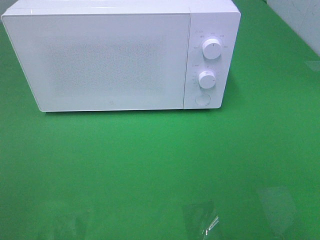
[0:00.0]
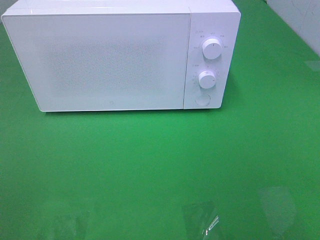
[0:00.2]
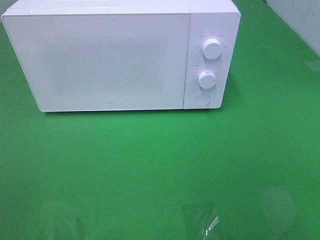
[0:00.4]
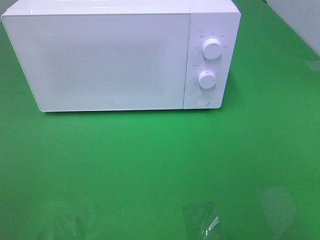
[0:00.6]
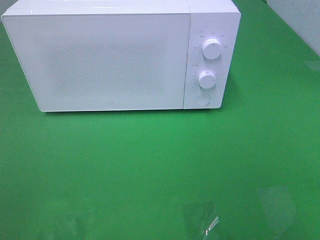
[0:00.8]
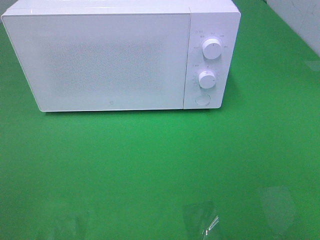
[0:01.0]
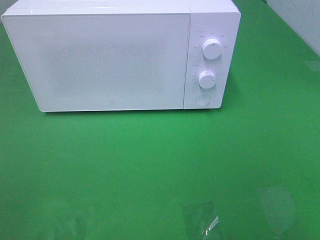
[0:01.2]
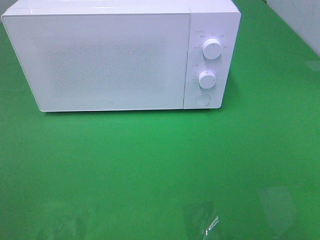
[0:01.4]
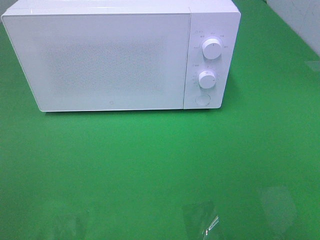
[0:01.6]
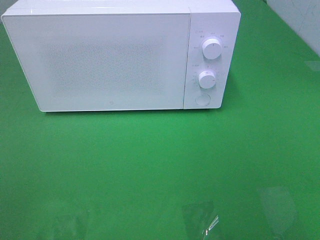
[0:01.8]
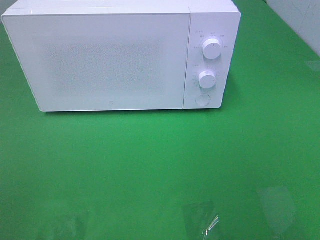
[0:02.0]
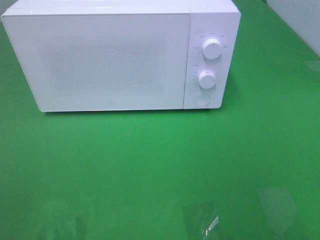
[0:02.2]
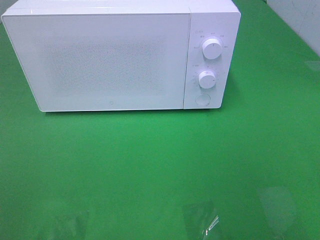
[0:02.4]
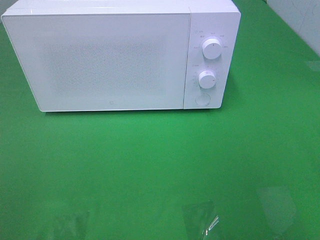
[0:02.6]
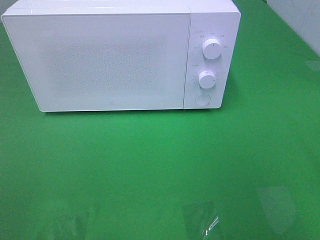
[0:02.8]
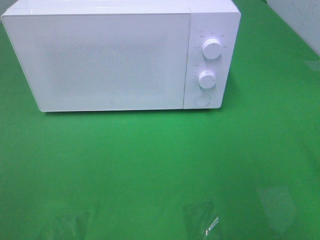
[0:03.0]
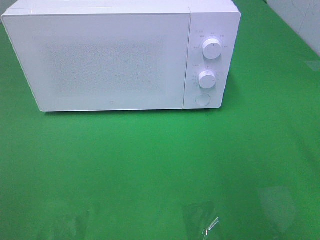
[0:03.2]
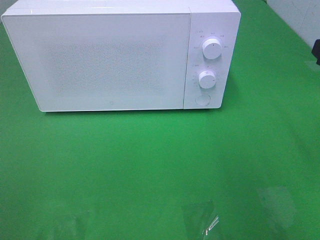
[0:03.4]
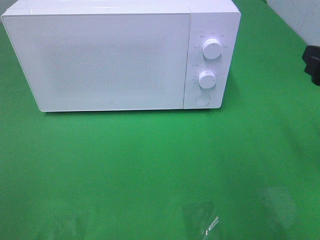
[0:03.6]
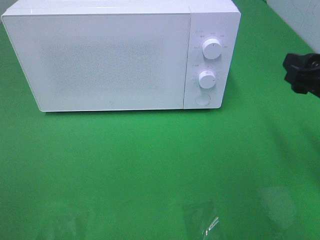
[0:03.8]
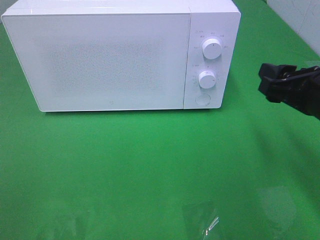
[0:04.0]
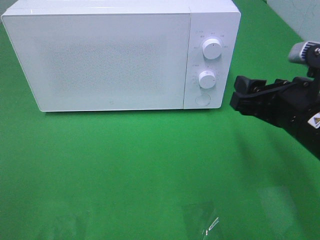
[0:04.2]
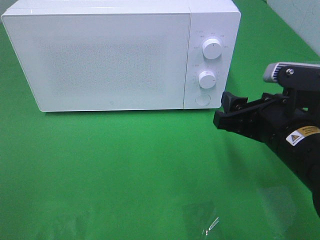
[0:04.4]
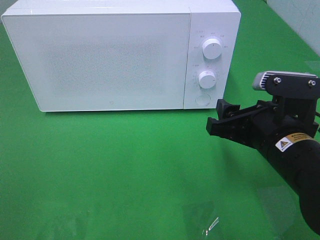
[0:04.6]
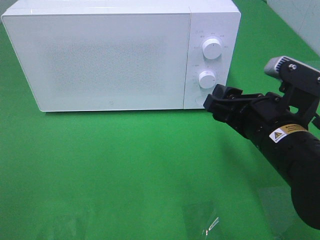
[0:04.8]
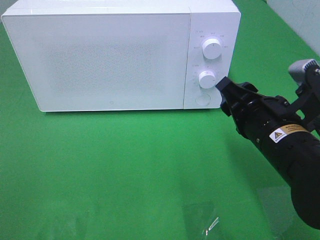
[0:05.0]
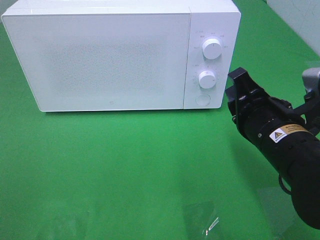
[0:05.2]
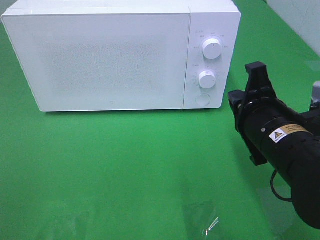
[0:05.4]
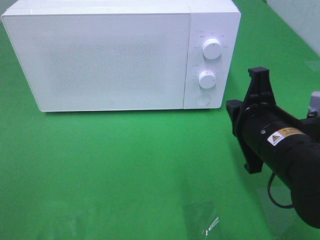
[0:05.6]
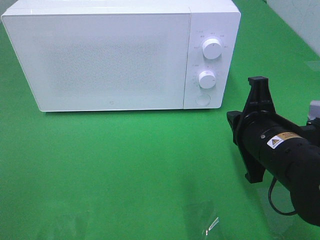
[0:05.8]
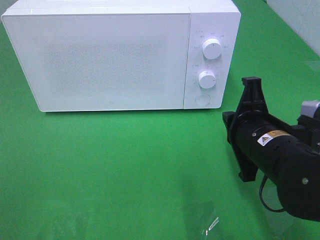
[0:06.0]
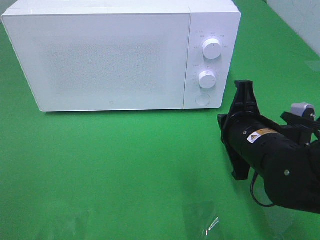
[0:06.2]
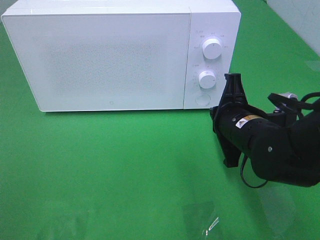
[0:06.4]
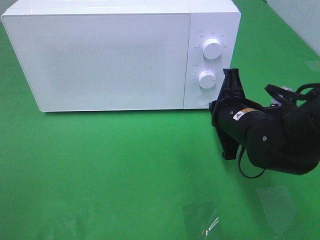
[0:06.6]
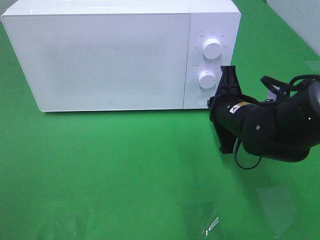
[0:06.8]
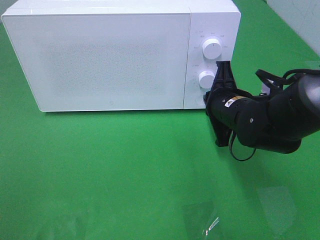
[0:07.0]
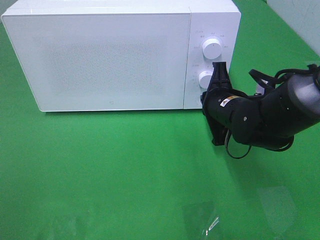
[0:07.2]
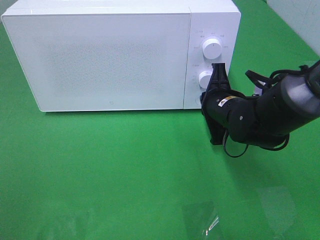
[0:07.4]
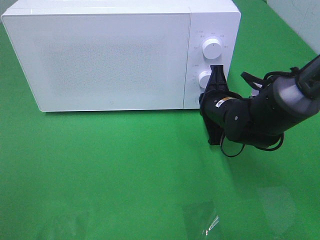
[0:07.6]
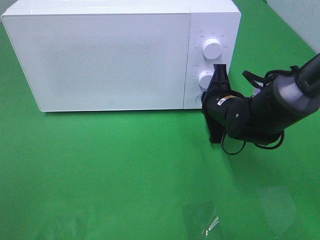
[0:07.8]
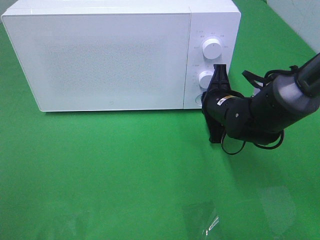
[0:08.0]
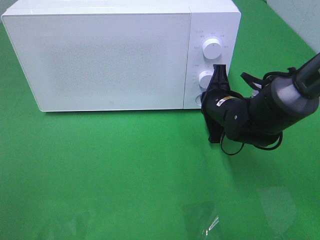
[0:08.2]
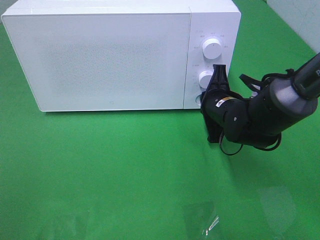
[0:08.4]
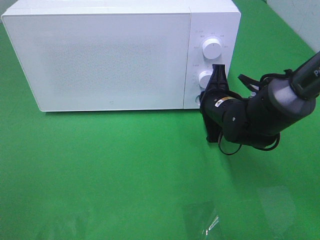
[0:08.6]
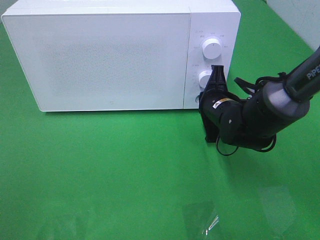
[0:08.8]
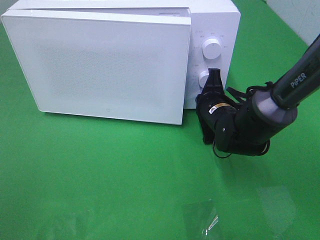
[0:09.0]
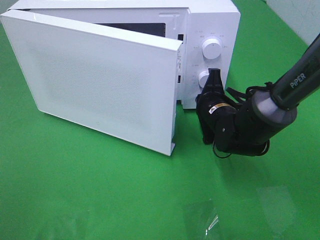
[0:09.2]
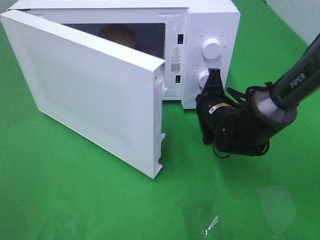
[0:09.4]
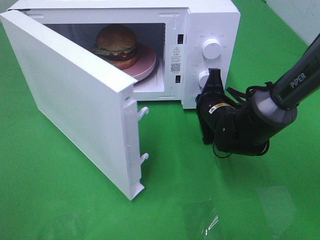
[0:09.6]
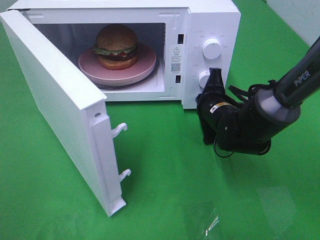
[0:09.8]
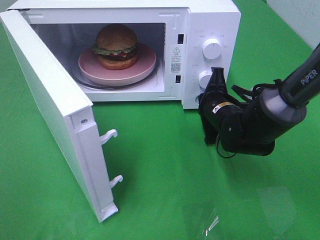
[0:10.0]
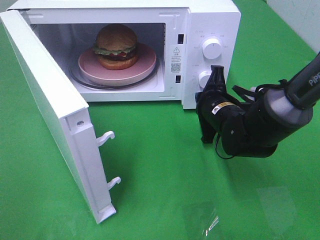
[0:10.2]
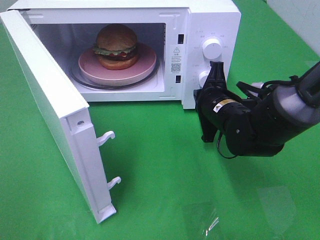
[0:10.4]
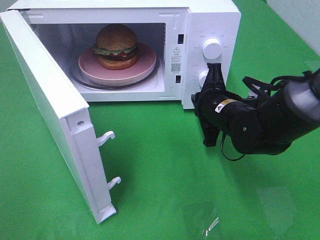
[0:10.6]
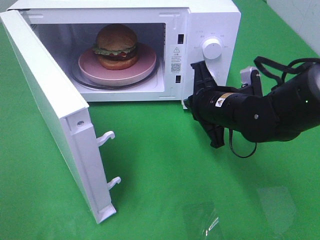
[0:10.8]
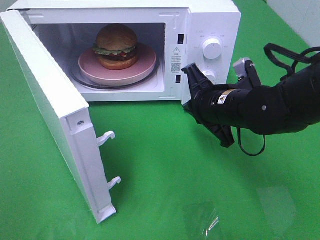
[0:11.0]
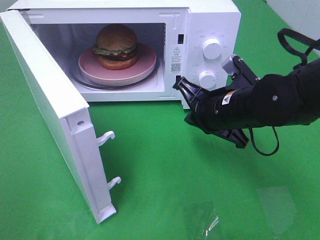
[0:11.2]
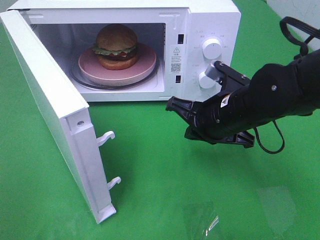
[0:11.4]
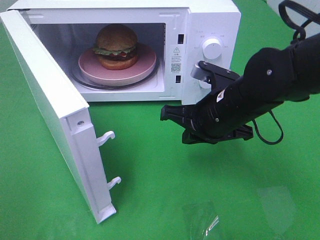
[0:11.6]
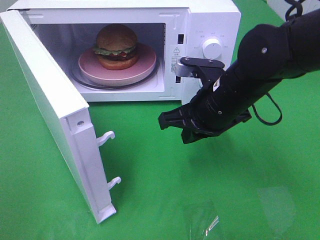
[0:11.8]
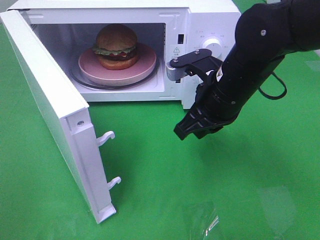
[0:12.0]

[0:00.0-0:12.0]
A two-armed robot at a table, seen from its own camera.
Task of the whole recording: Heat the burger.
Step, 0:00.0 to 0:10.2: Right hand: press the switch.
0:03.0 to 0:04.4: The right gripper moves downward and to the left, approximately 15 cm.
0:04.4 to 0:06.0: The right gripper closes up.
0:06.0 to 0:07.6: The right gripper shifts approximately 10 cm forward.
0:07.6 to 0:09.0: There are only small adjustments of the grippers.
0:10.4 to 0:12.0: The right gripper heads upward, covering approximately 10 cm.

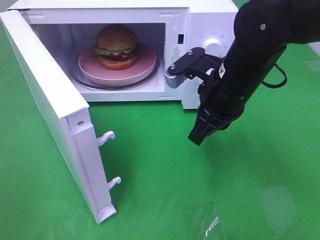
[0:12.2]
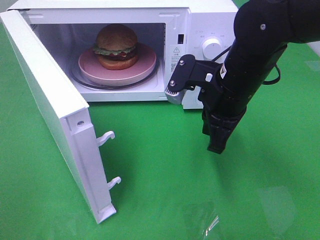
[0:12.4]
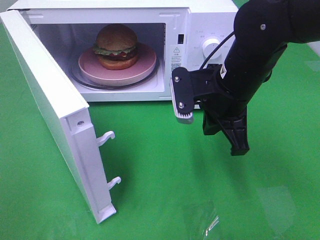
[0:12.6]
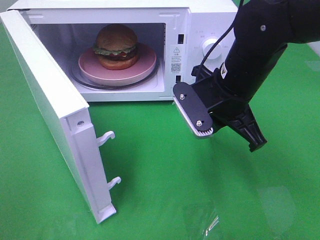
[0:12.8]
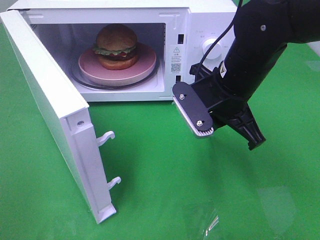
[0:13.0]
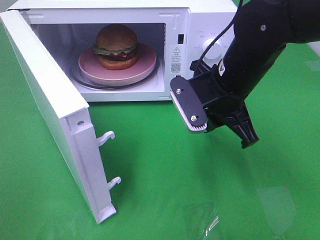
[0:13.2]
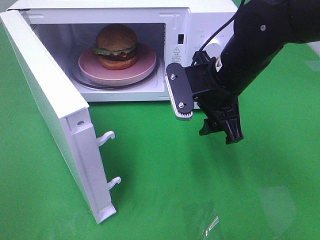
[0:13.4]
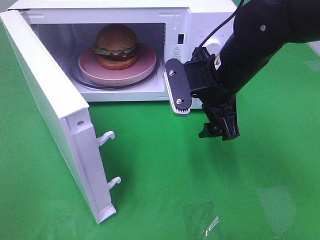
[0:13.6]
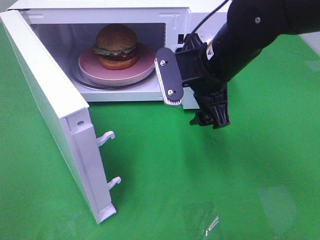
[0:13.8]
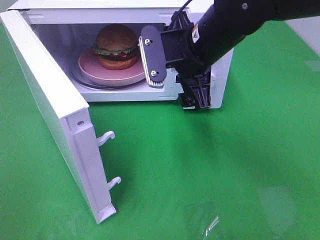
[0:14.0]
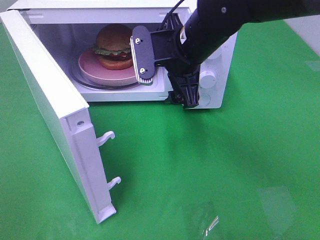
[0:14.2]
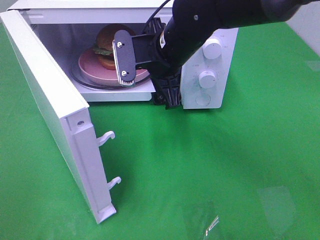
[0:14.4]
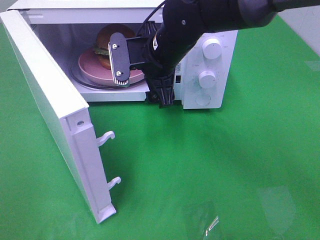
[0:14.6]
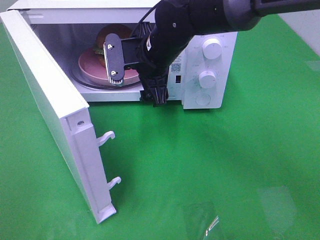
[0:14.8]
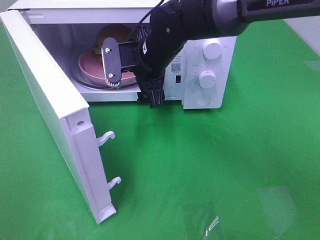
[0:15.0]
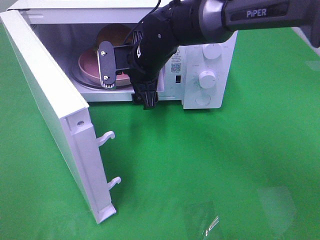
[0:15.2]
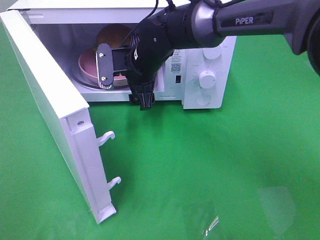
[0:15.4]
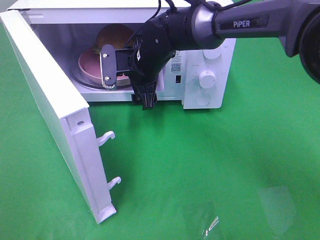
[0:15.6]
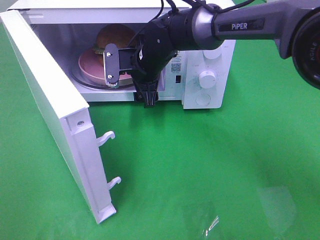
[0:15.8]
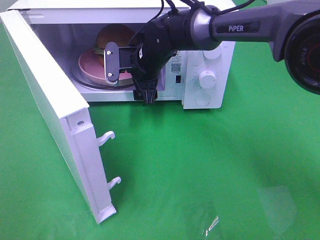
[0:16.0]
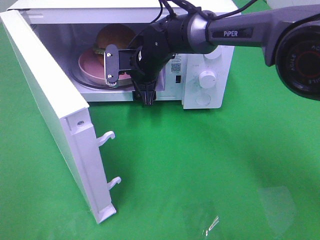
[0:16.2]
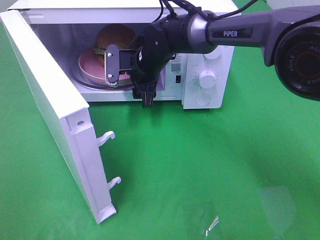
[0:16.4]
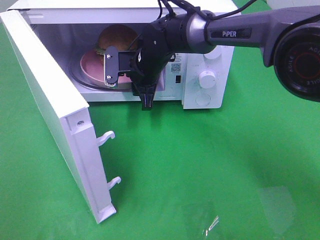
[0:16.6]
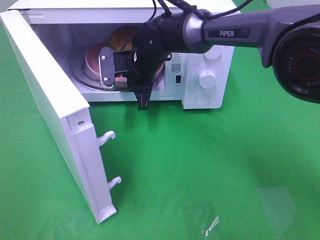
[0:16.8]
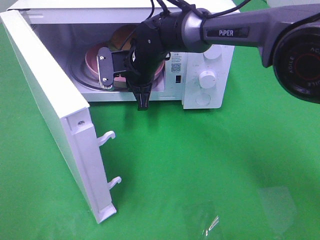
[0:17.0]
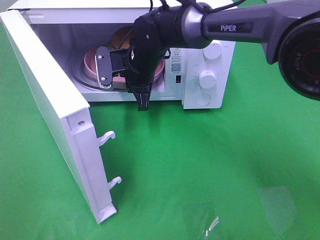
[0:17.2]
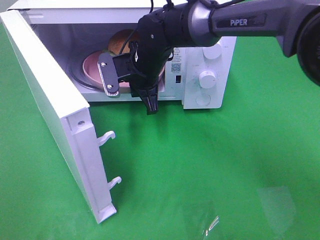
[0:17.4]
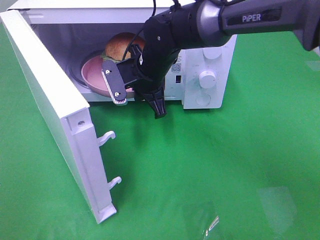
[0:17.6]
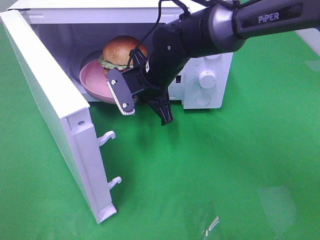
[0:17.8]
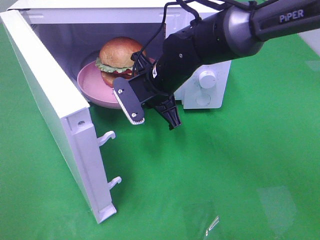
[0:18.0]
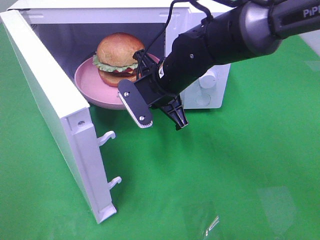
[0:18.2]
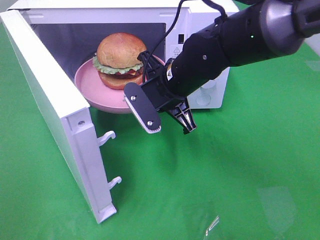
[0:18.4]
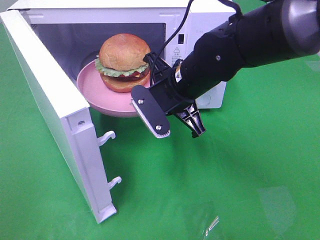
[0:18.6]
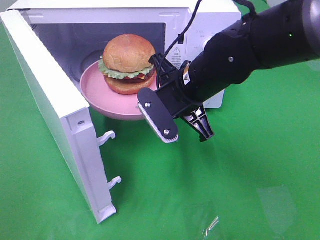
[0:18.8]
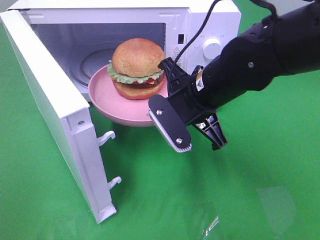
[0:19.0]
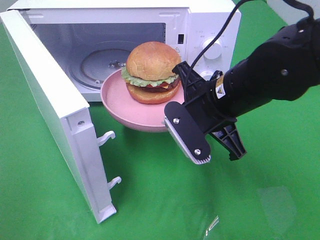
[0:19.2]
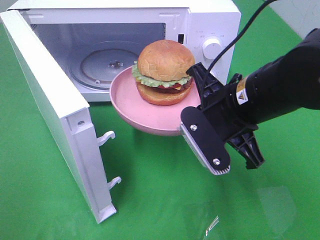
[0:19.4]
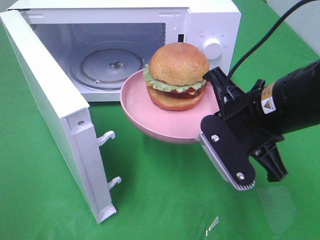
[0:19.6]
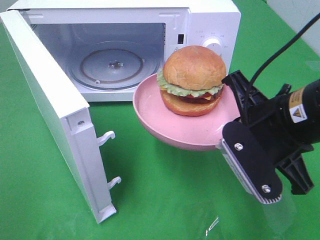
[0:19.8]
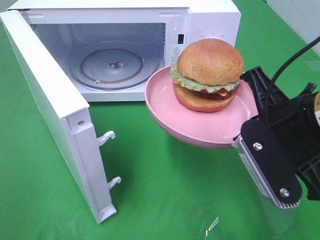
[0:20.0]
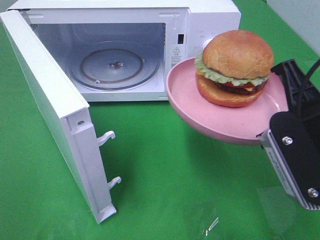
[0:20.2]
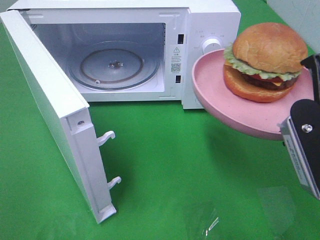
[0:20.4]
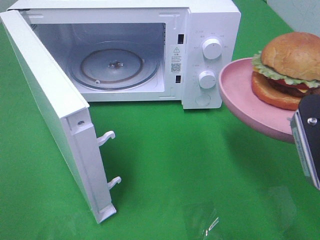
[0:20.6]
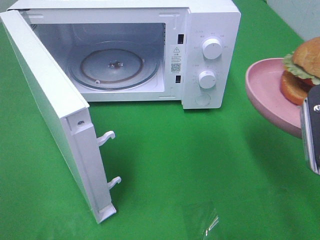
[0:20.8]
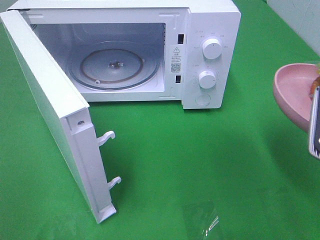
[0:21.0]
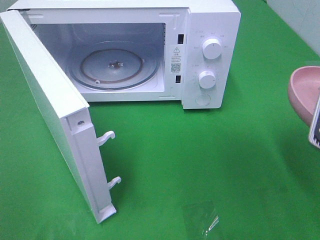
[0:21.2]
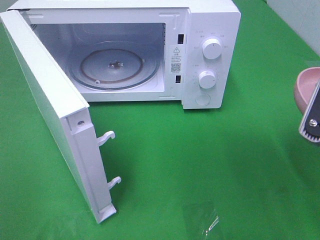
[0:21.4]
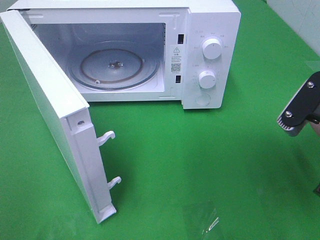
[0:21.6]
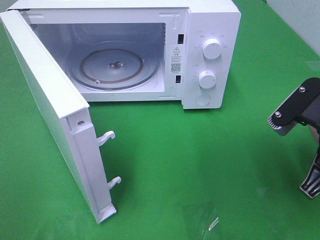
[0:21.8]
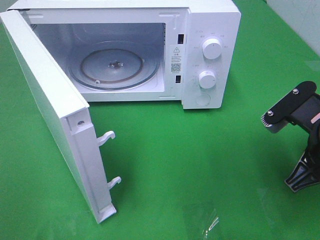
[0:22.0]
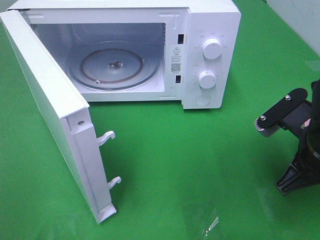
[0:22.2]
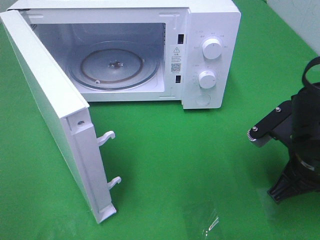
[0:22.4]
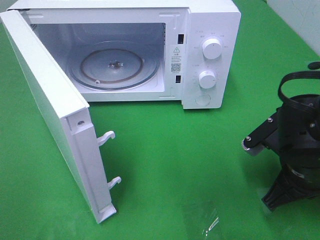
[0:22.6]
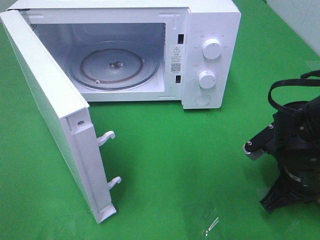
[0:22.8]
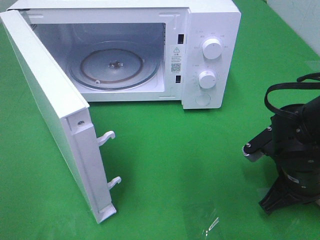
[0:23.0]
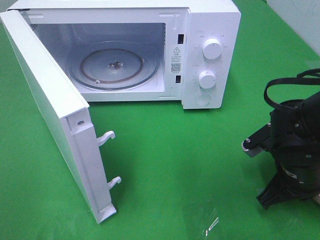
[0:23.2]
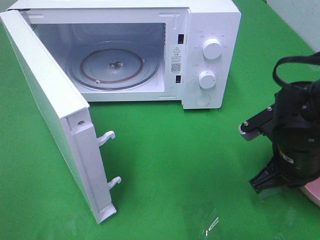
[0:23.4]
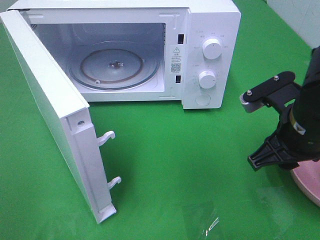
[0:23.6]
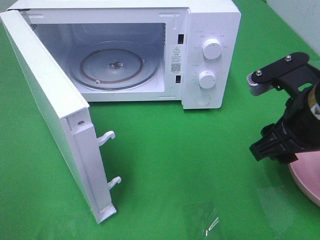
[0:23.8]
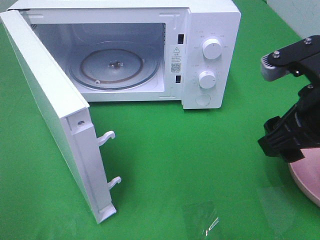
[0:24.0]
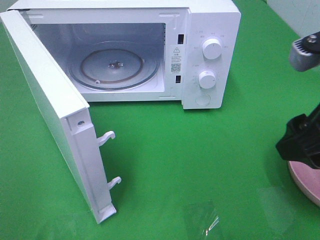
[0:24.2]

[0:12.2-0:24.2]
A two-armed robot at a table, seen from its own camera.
Task of the whole recording: Heat the burger.
Step, 0:12.2 to 0:16.8: Right hand: grab the plate with the hamburger.
Step, 0:17.0 to 0:23.4: Right hand: place the plate on the table.
0:12.2 to 0:13.8: The right gripper opens.
0:13.8 to 0:15.2: The right gripper travels to the left, forward and downward by roughly 15 cm.
0:15.2 to 0:16.6: The right gripper moves approximately 5 cm, and closes up.
0:16.6 to 0:18.2: The right gripper shifts some 10 cm backward.
0:18.2 to 0:19.8: The right gripper shifts some 20 cm backward and to the right.
0:19.8 to 0:21.2: The right gripper is displaced to the right by roughly 10 cm.
0:21.2 to 0:22.6: The right gripper moves downward and forward, approximately 15 cm.
0:22.6 to 0:24.2: The right gripper travels upward by about 15 cm, and opens its fingers.
